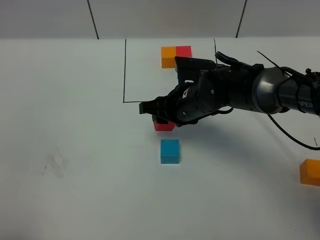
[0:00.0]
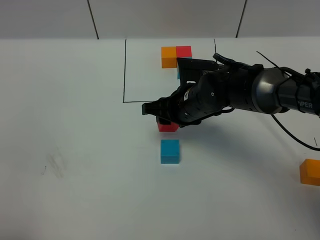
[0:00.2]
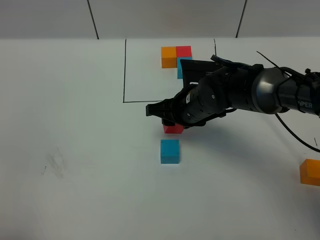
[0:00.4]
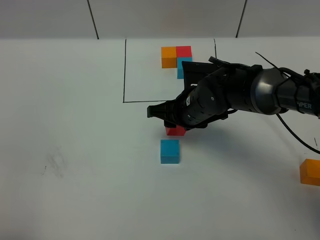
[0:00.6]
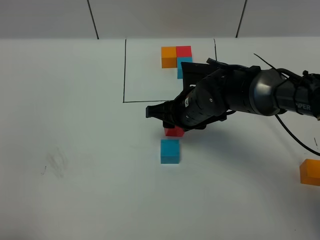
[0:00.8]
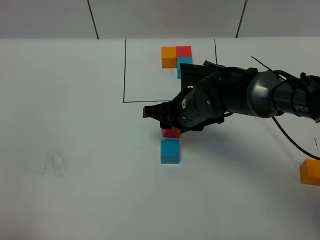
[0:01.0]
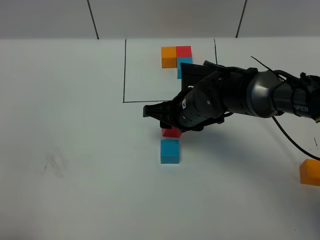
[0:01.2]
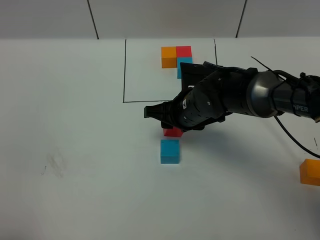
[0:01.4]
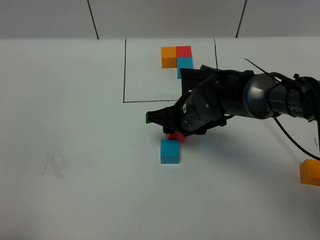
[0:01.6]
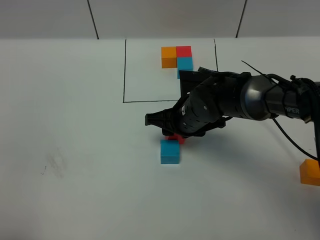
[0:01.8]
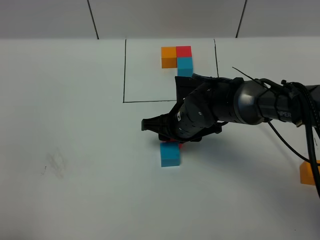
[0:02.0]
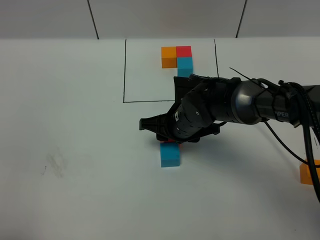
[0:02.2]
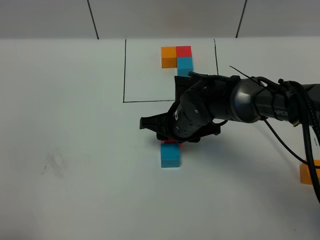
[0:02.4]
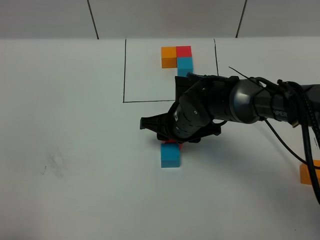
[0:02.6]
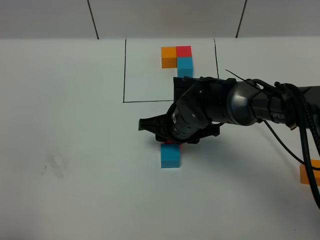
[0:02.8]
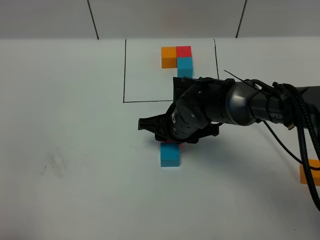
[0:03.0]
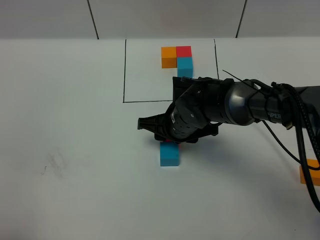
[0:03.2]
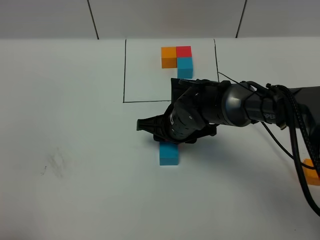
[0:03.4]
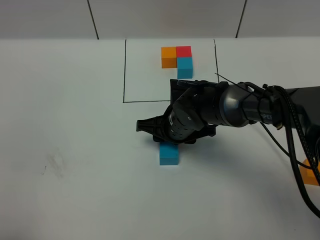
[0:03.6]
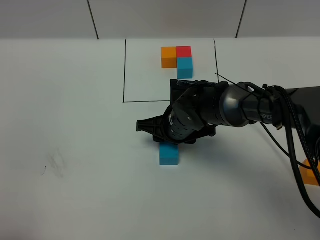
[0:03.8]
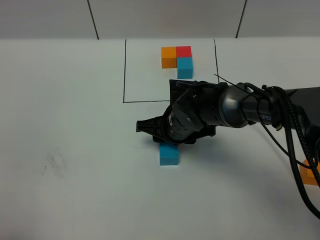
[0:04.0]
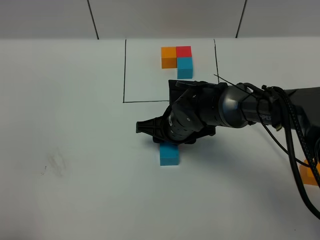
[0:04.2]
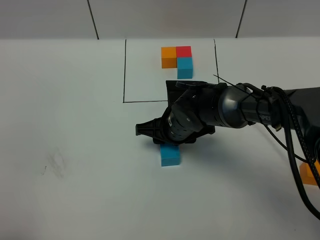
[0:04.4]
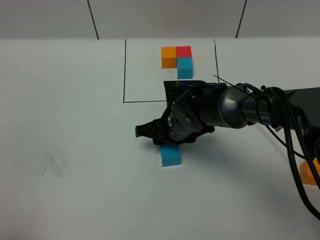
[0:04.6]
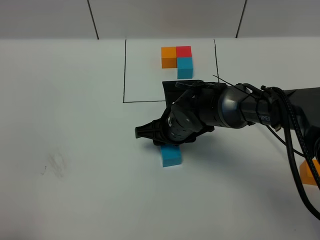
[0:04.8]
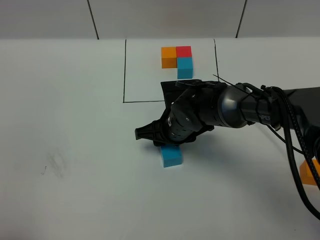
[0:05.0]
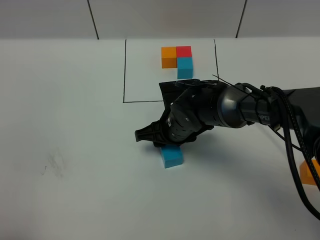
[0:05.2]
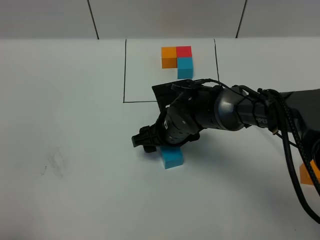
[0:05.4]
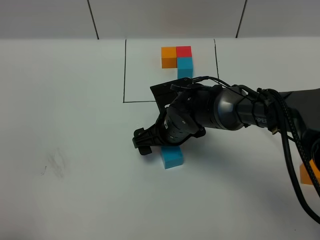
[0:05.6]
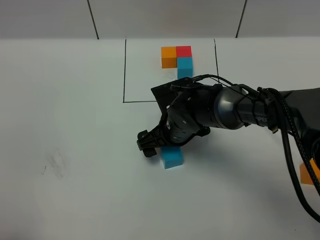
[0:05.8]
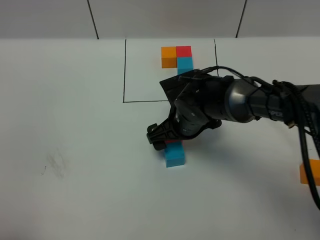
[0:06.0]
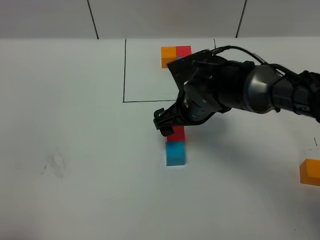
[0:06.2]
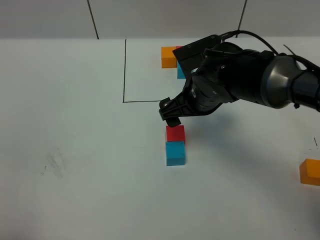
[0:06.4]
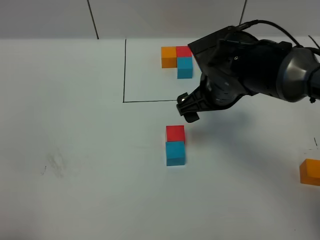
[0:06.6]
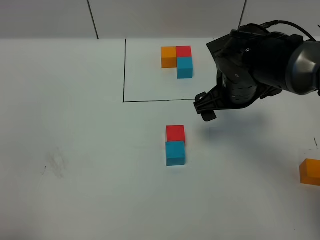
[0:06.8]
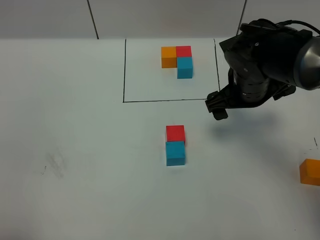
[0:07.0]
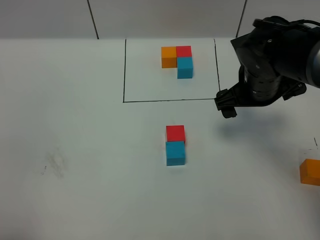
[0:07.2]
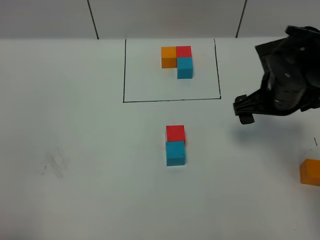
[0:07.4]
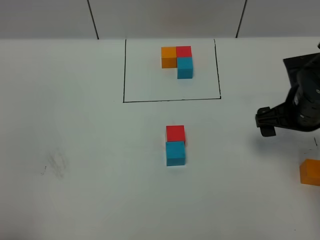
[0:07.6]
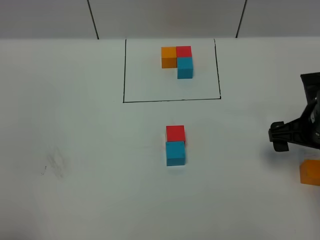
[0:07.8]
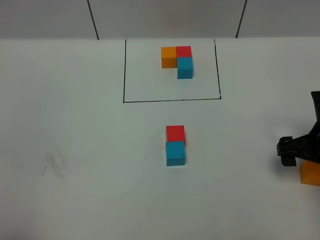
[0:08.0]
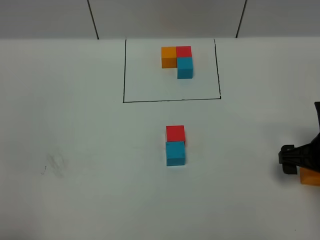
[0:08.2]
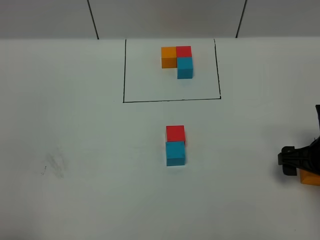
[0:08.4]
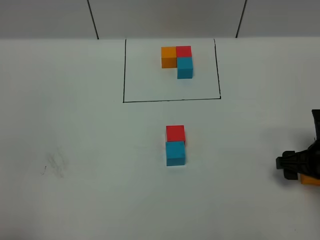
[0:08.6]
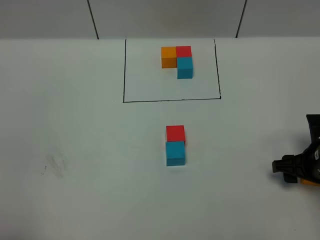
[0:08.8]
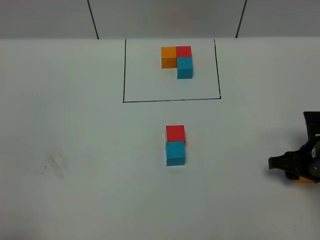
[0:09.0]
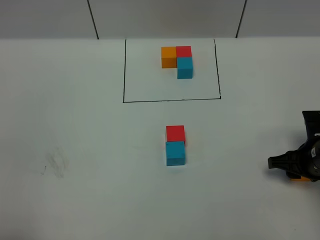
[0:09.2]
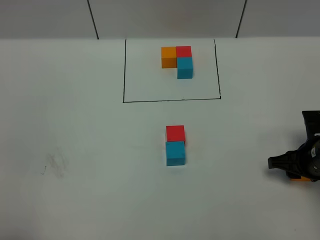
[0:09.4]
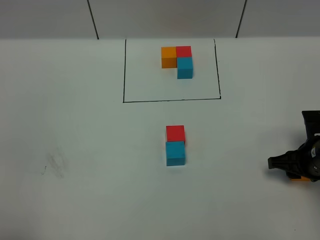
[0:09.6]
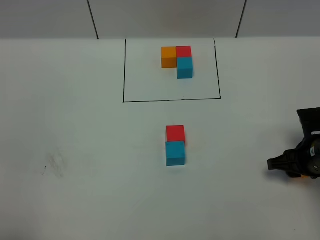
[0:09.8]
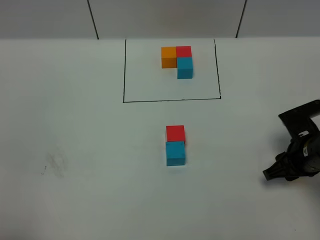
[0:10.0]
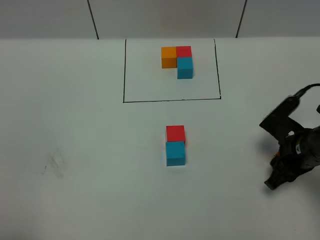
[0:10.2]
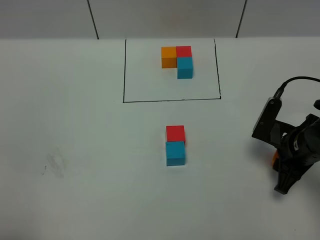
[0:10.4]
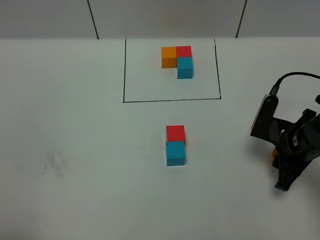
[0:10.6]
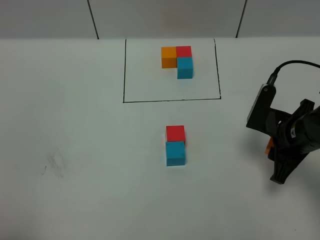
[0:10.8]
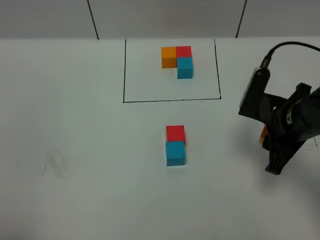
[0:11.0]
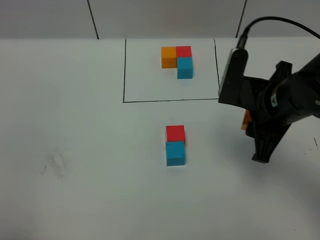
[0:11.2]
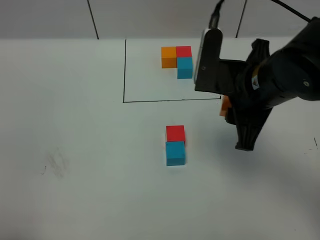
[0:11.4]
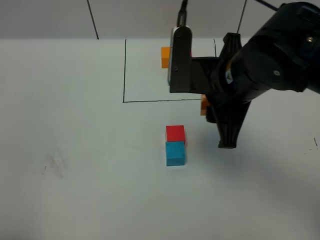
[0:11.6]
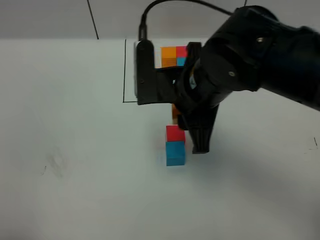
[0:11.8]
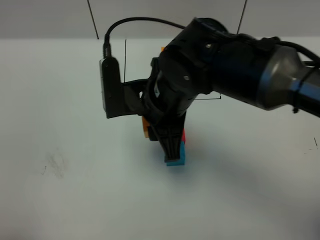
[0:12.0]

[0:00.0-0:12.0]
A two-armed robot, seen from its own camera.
Task of the whole recording: According to the building block template in front, assemble the scattered blocks together.
Step, 0:00.0 to 0:06.0: Put the red cube on the behind of the blue cube.
0:00.0 to 0:04.4: There are only small adjustments of the grippers.
0:04.4 to 0:06.0: The right gripper opens.
0:06.0 to 0:07.6: The right gripper shifts roughly 20 cm to the right.
0:07.6 to 0:09.0: The right gripper shifts about 10 cm downward, and closes its fingers.
0:10.4 to 0:12.0: The right gripper travels to the left and upward by about 30 cm.

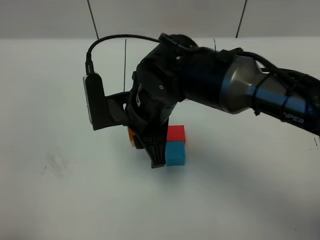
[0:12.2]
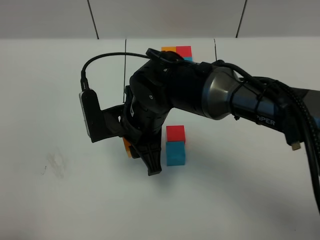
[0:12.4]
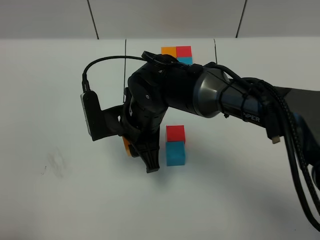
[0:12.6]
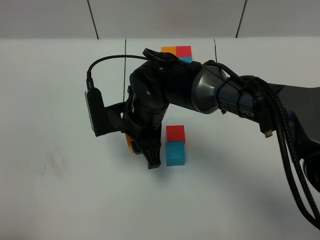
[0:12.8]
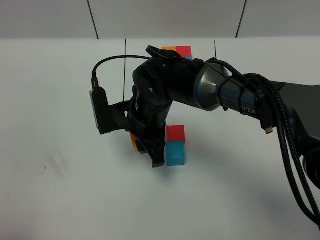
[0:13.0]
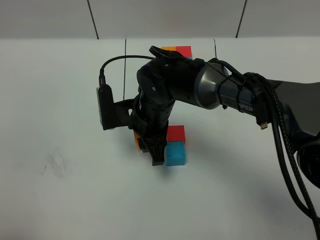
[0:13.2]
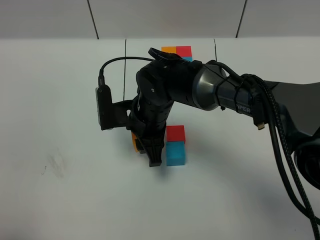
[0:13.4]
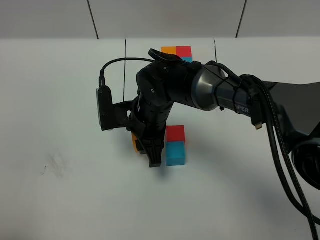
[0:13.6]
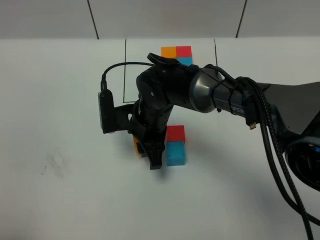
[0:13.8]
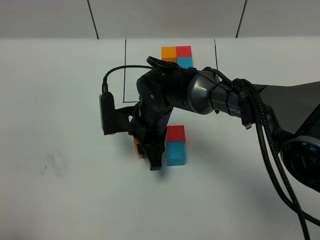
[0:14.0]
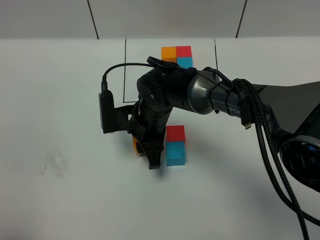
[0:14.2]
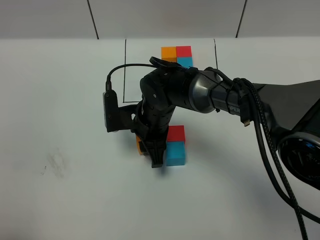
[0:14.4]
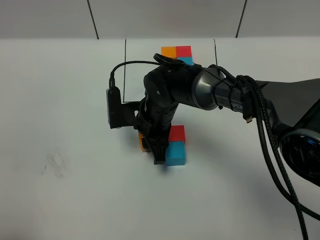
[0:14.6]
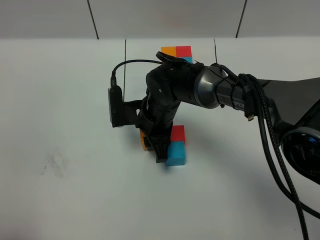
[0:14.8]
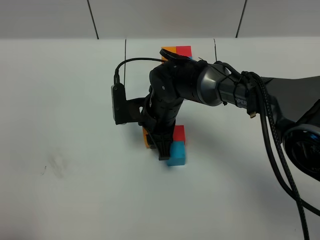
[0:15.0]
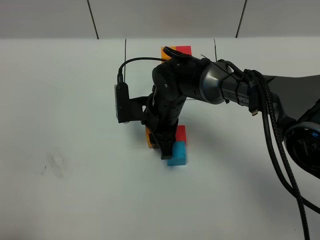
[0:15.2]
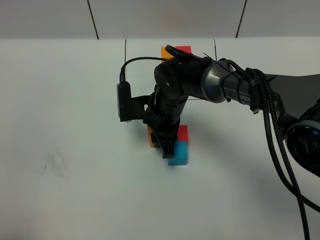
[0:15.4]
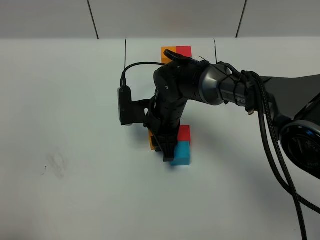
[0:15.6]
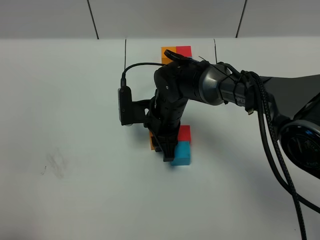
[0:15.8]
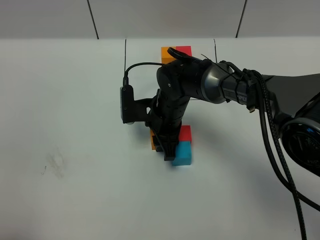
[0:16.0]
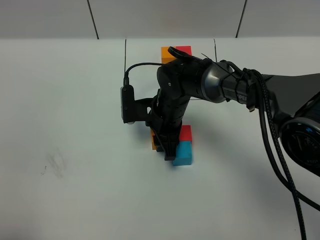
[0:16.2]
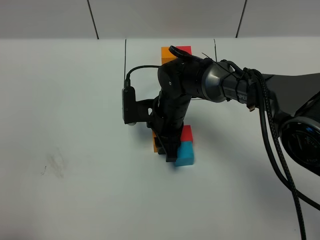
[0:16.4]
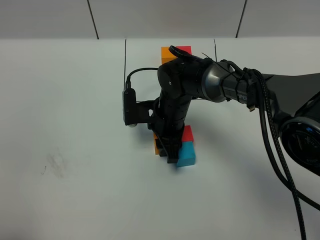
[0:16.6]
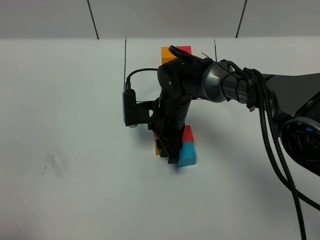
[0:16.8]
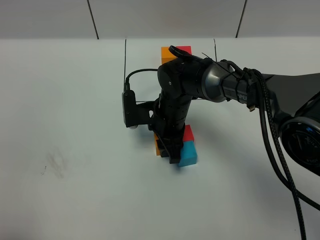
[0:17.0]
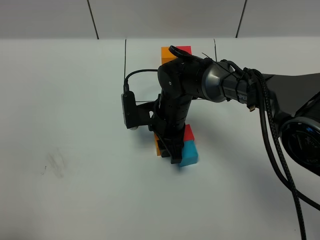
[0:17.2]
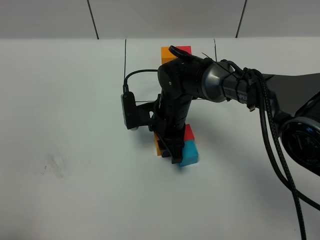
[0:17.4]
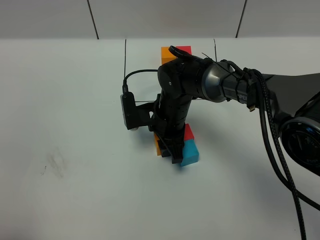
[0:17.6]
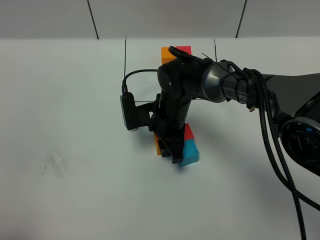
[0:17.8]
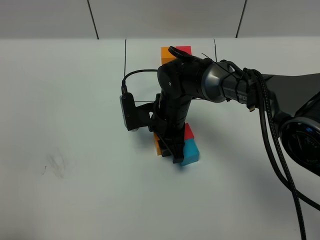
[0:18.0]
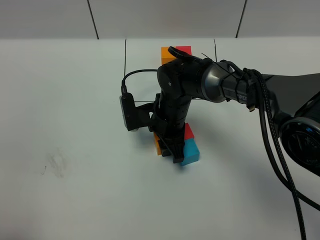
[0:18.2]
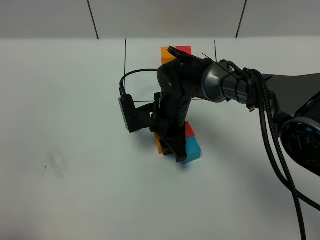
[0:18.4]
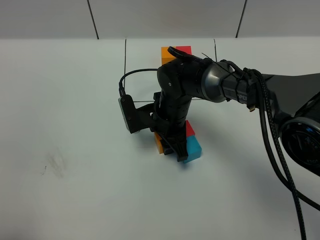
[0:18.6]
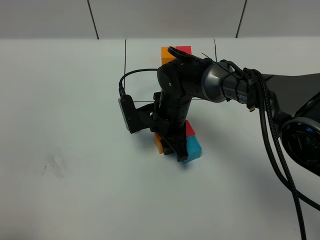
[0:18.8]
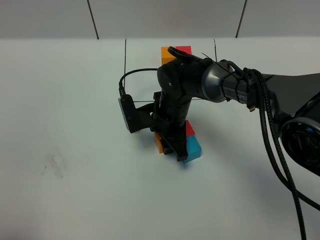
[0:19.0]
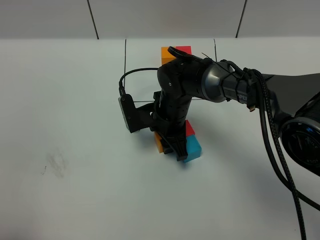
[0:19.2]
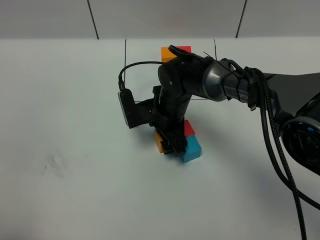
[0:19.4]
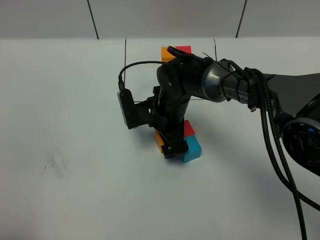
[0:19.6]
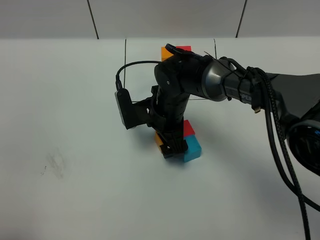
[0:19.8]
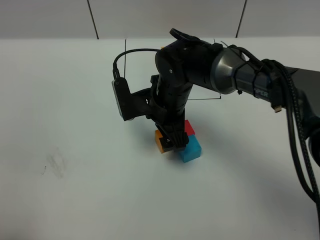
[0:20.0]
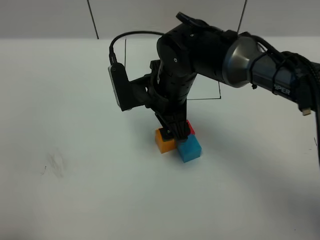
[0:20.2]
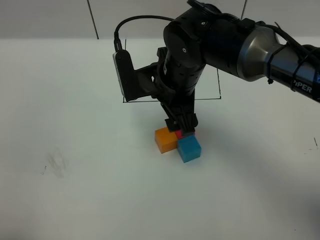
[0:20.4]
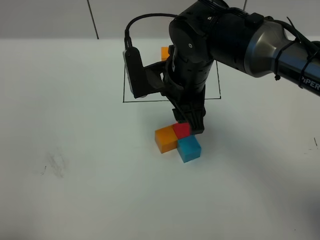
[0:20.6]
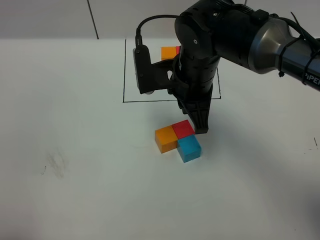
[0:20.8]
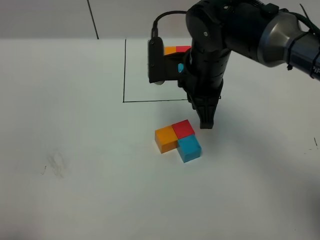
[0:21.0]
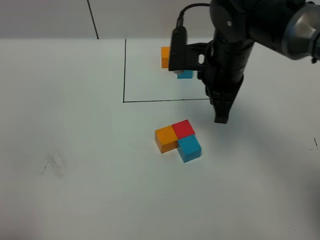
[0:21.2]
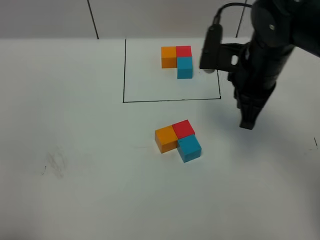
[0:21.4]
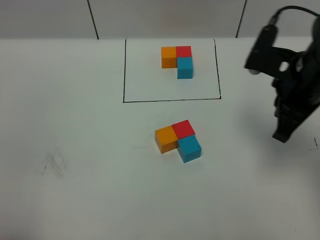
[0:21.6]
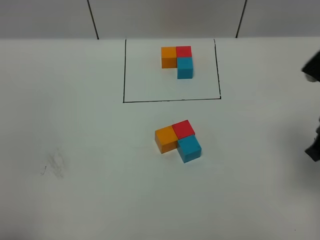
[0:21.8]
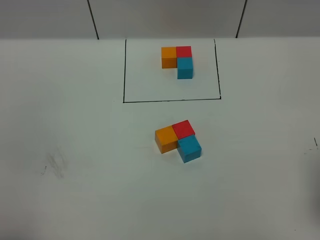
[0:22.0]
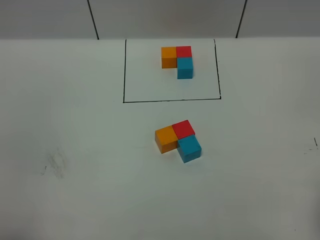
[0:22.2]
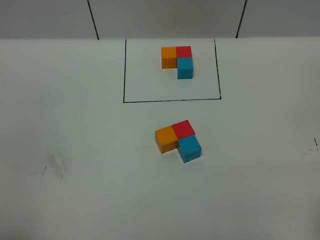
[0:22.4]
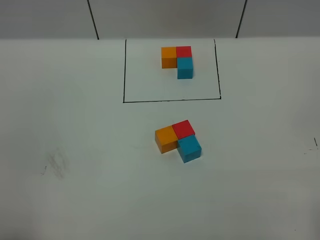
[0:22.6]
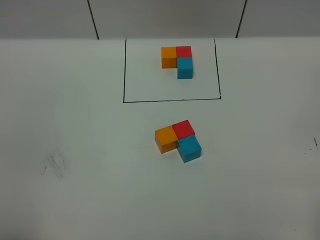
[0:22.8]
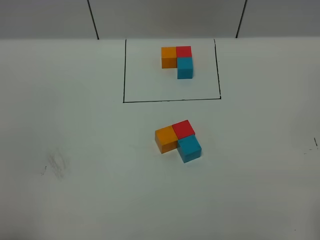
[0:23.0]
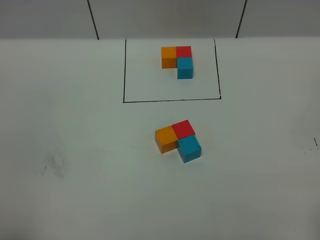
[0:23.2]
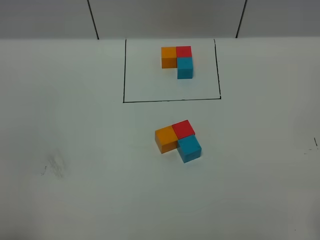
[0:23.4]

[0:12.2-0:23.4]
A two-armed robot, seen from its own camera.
Task of the whole recording: According to the building block template in front, assemble the scattered blocks together.
0:12.2 to 0:13.8: The right gripper goes some 10 cm downward.
0:13.8 to 0:18.6: The grippers make only small movements.
0:18.6 to 0:20.2: The right gripper travels upward by approximately 10 cm, and opens up.
0:20.2 to 0:21.8: The right gripper heads to the right and backward, covering some 25 cm, and closes.
0:21.8 to 0:23.4: The right gripper goes some 15 cm backward.
